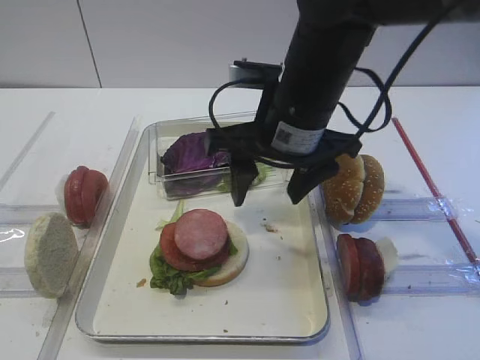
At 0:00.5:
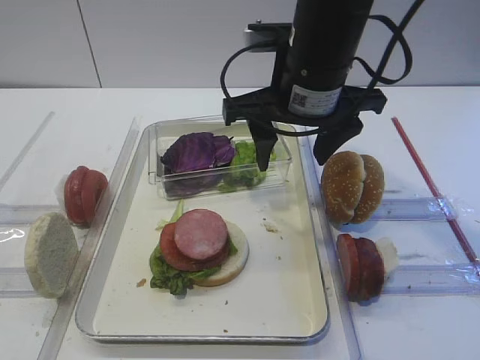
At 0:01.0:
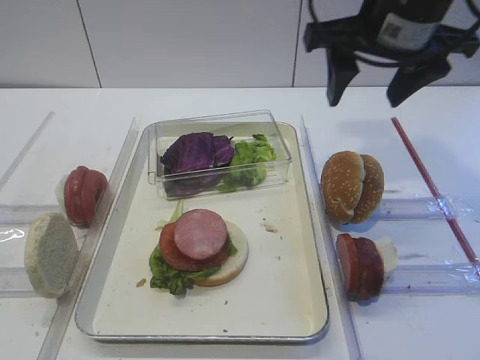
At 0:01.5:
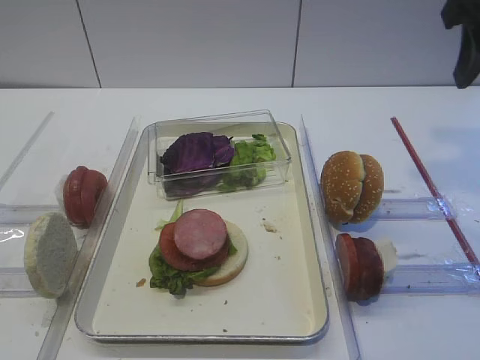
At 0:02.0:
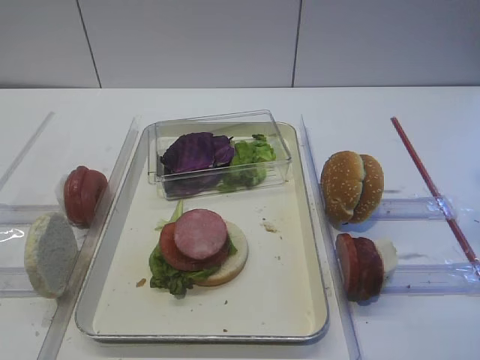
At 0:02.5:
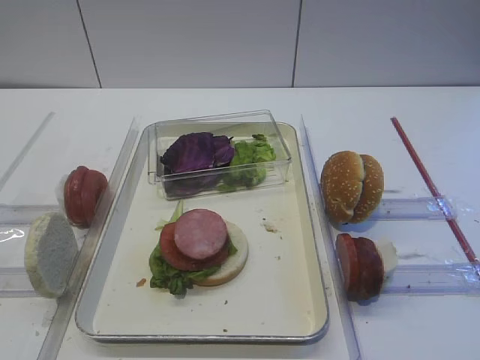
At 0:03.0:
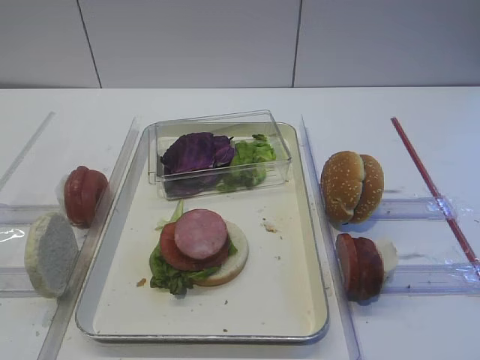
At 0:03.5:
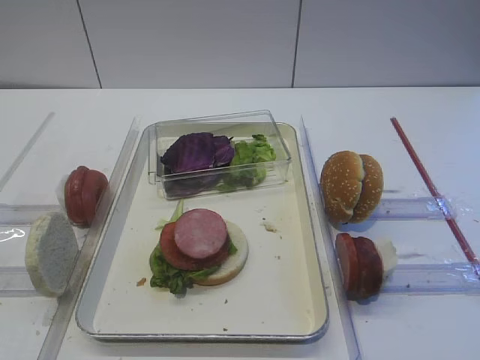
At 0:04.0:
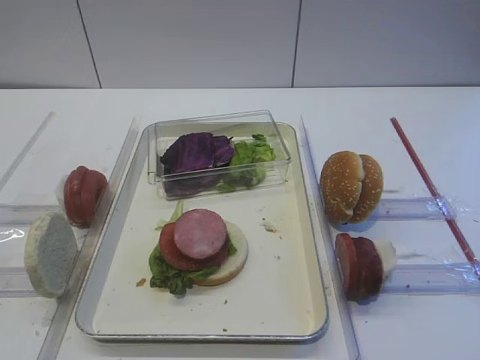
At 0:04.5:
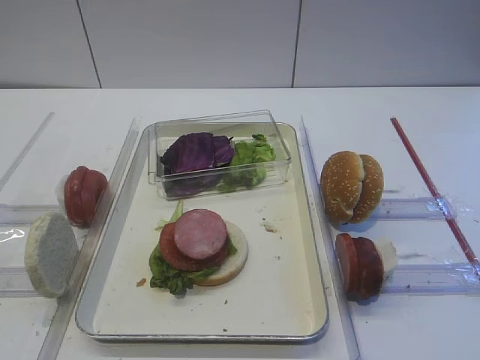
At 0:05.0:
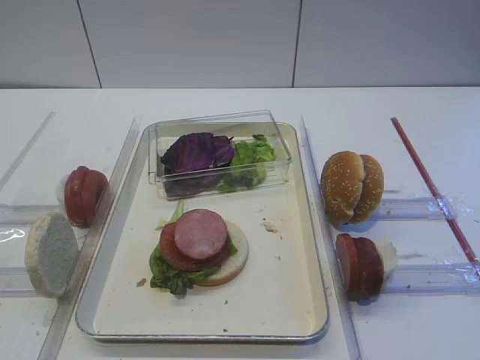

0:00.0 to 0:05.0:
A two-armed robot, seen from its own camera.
0:00.0 to 0:02.5: The right gripper moves to the right, backward and upward, some 30 cm.

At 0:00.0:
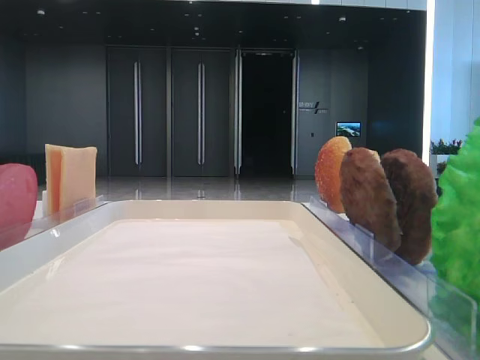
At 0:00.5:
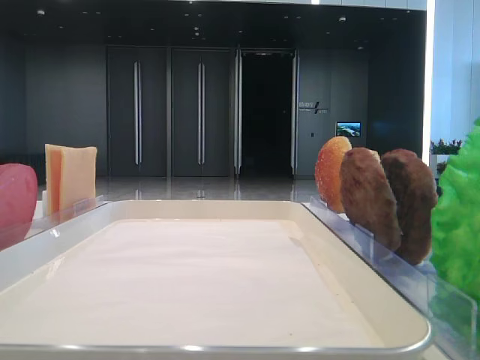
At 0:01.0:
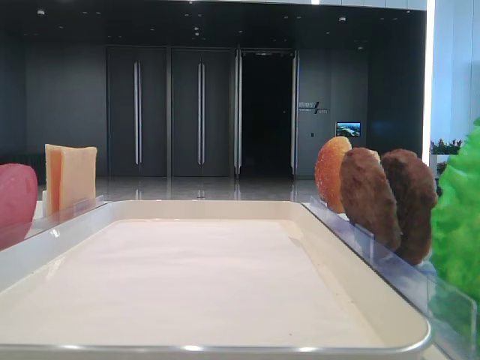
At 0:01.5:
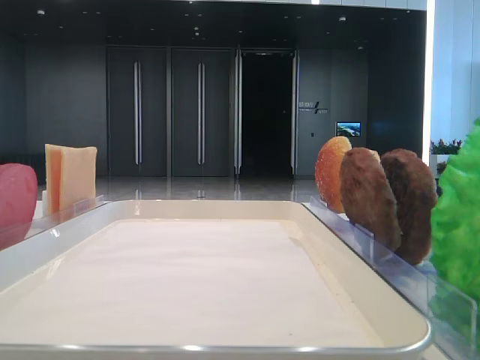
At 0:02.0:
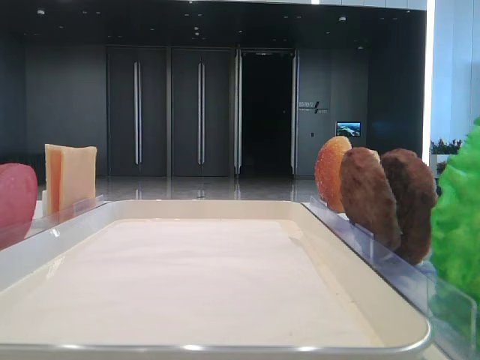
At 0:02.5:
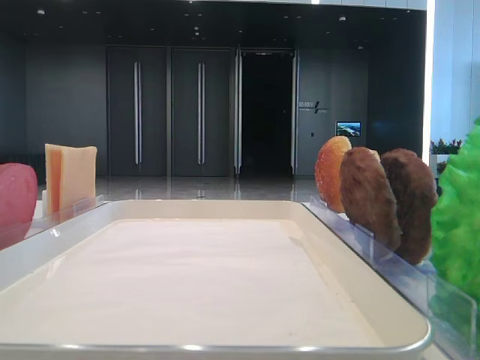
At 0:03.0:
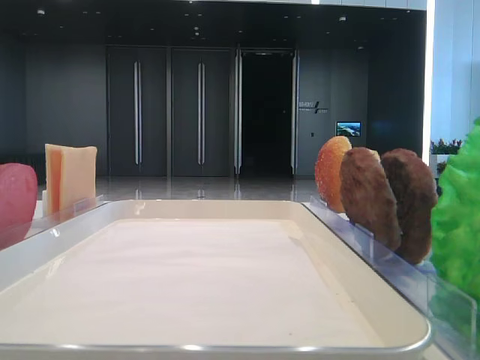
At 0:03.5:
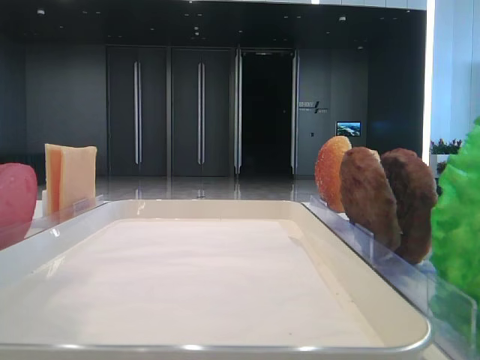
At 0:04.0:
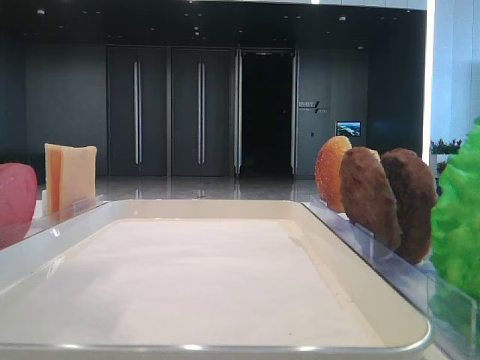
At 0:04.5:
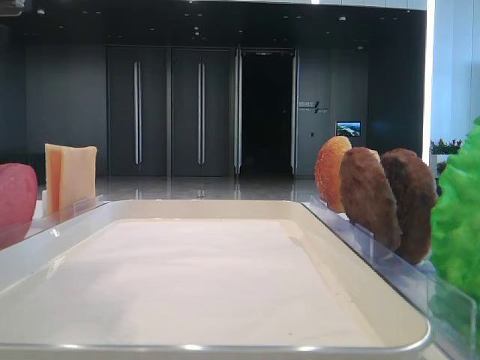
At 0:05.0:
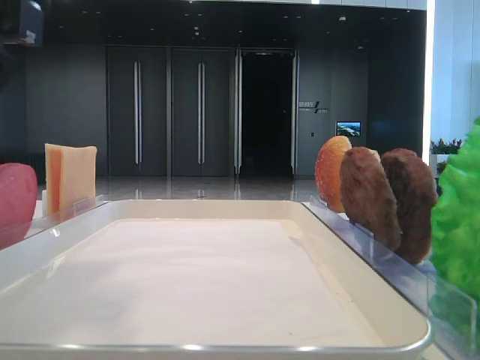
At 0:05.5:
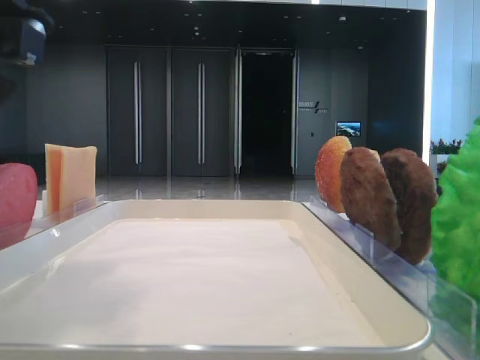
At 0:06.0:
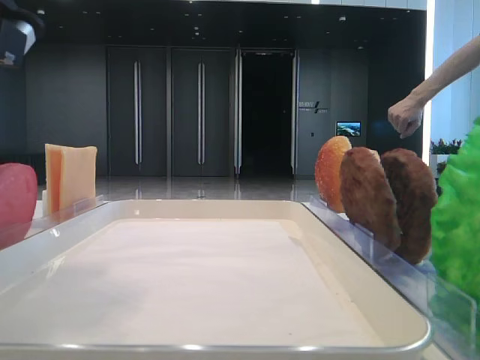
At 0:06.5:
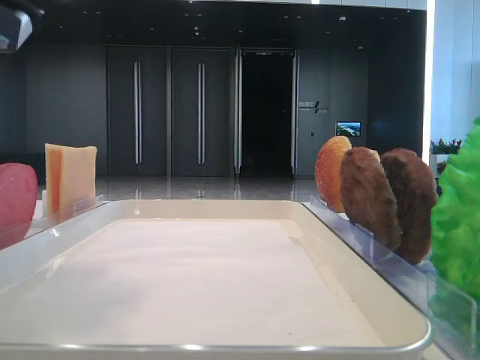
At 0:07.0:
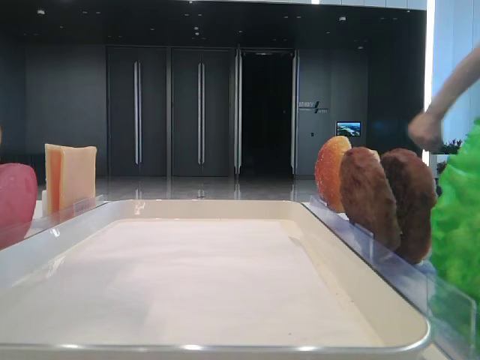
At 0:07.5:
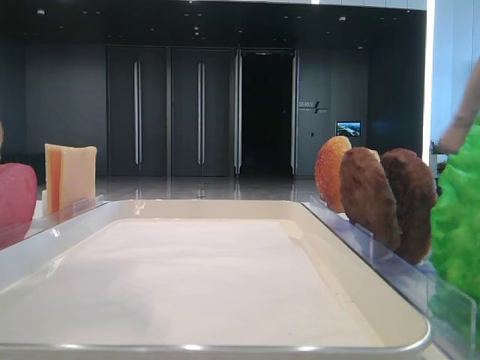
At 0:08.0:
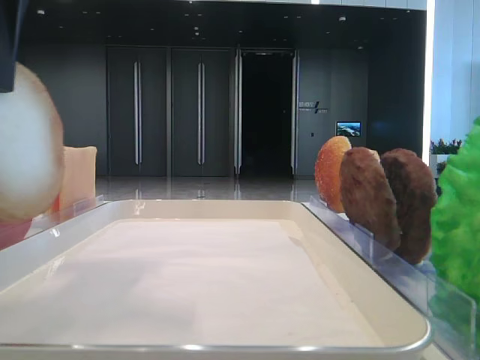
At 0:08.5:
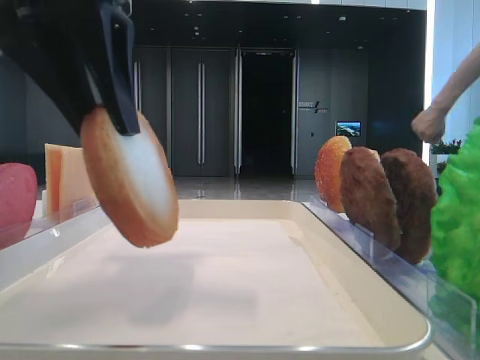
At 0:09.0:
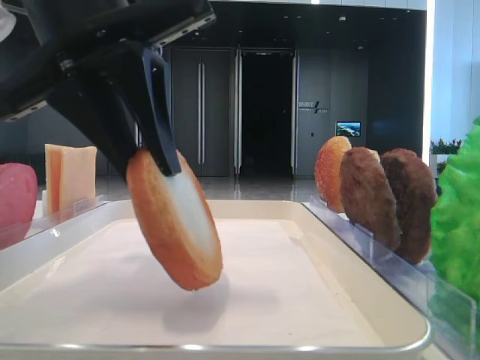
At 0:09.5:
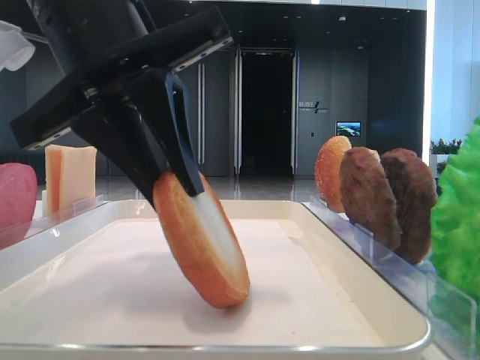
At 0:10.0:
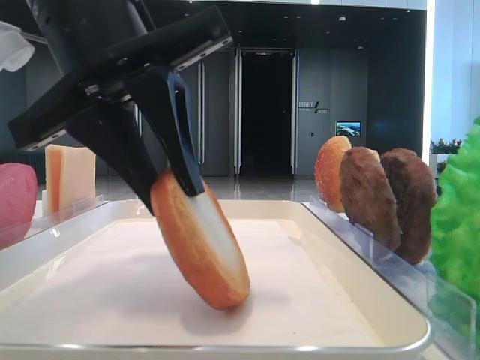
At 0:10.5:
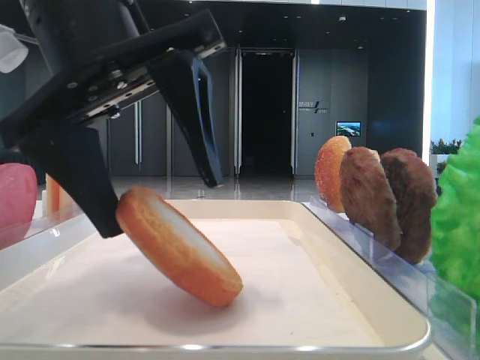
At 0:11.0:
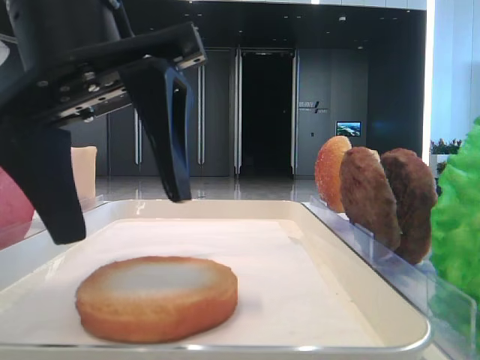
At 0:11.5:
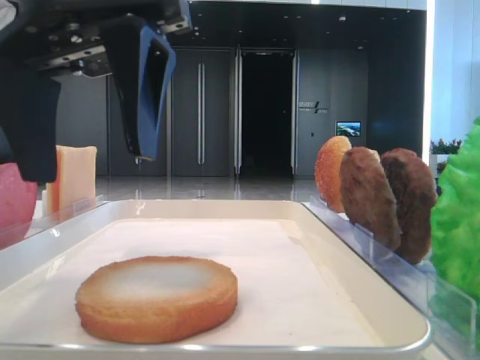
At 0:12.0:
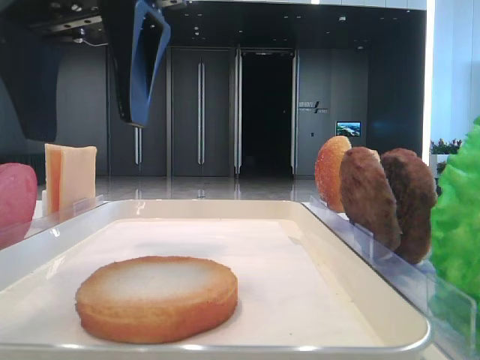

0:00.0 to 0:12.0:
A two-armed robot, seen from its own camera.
Step, 0:00.0 to 0:06.0: Pick up the bottom bread with the left hand.
Step, 0:06.5 to 0:10.5: Place the bread on the tray with the left hand.
0:02.0 to 0:04.0: The left gripper heads to the right, forward and downward, covering approximately 20 cm.
0:06.0 to 0:08.0: The left gripper ends up approximately 5 cm from where it was.
0:08.0 to 0:10.0: The left gripper travels downward and to the right by some 10 cm.
0:10.0 to 0:12.0: The left gripper heads upward, covering roughly 5 cm, and opens.

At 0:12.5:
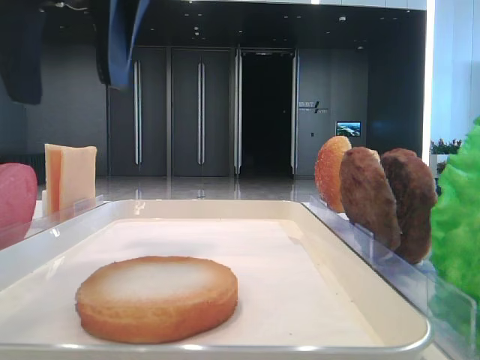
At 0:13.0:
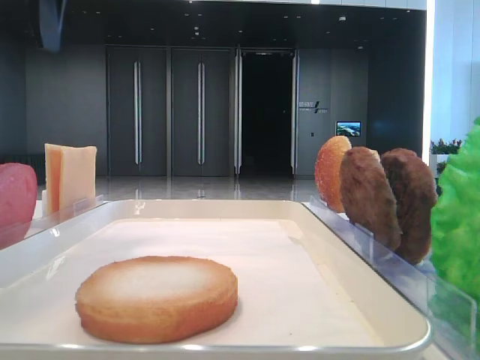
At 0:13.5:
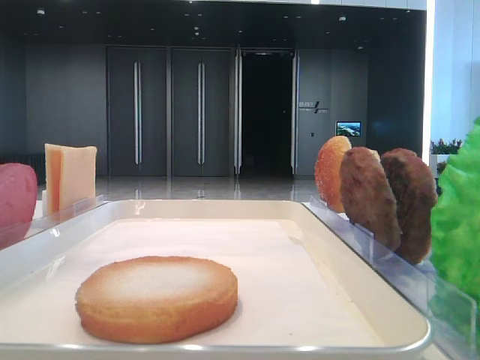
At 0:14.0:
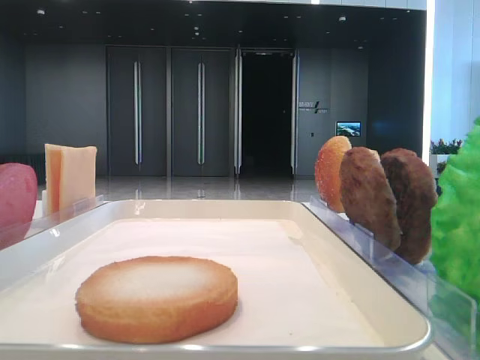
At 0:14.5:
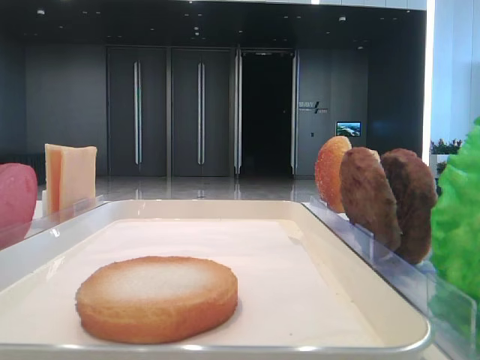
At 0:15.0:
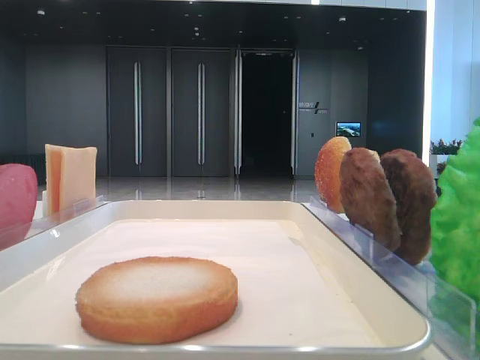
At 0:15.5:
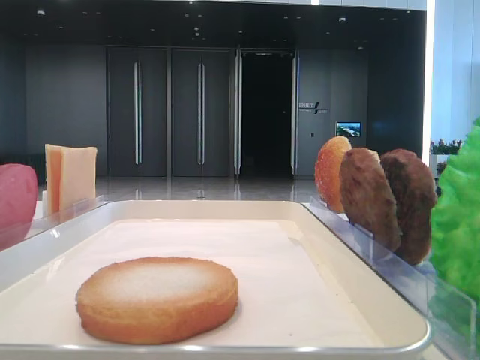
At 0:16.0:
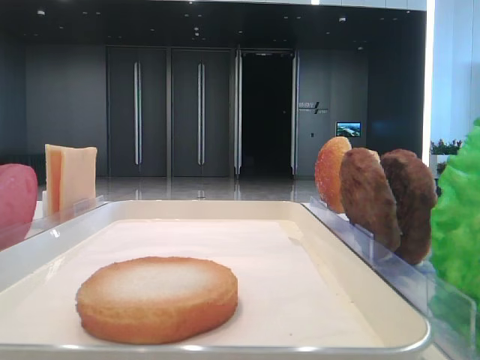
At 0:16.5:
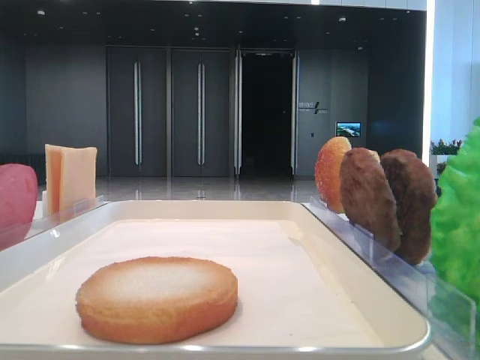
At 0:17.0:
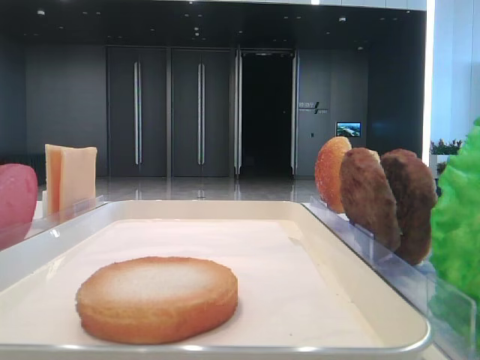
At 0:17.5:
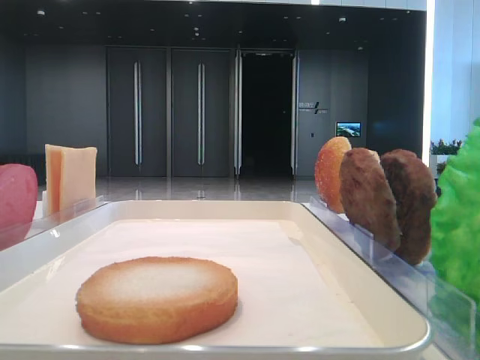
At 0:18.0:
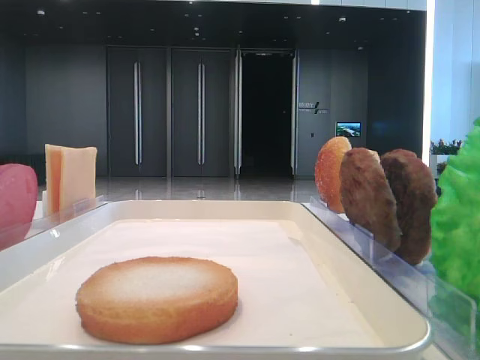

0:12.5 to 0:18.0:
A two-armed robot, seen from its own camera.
0:12.5 to 0:14.5: The left gripper shifts some 20 cm to the left, backward and upward.

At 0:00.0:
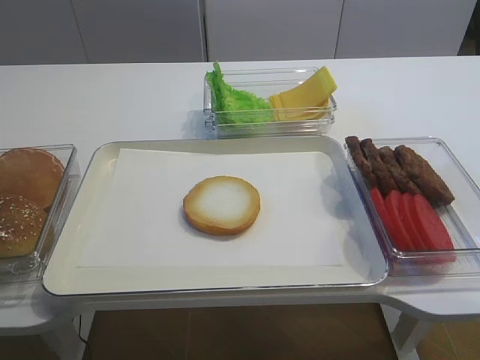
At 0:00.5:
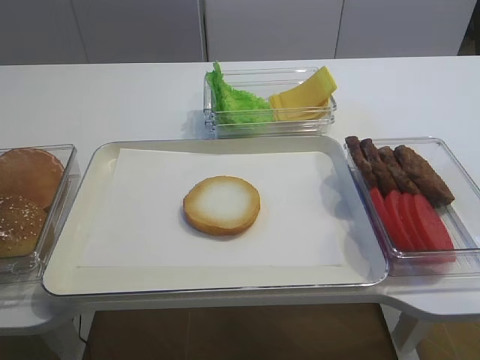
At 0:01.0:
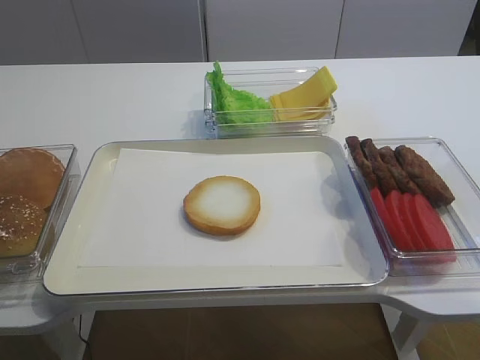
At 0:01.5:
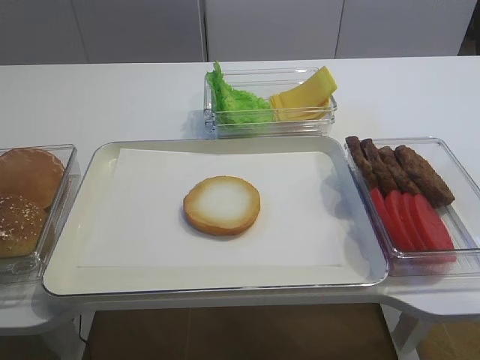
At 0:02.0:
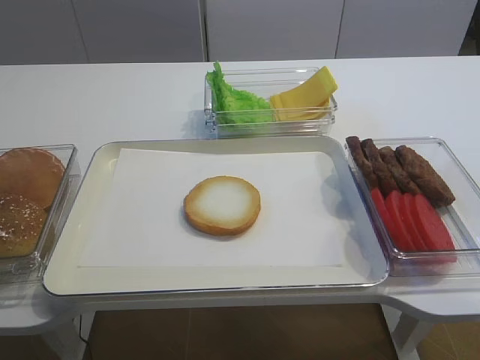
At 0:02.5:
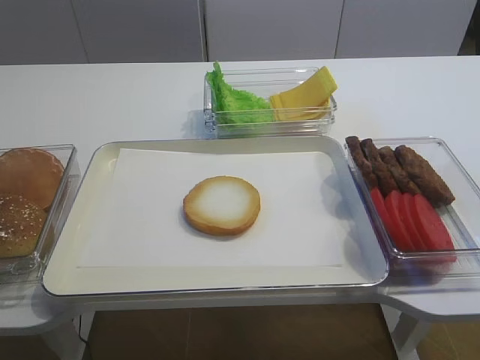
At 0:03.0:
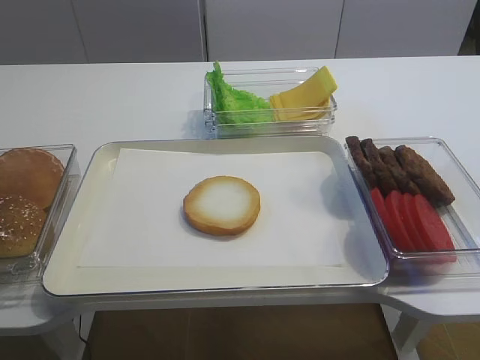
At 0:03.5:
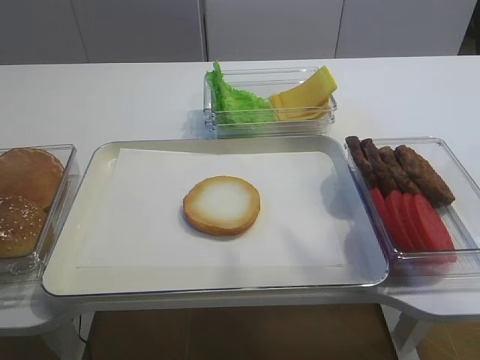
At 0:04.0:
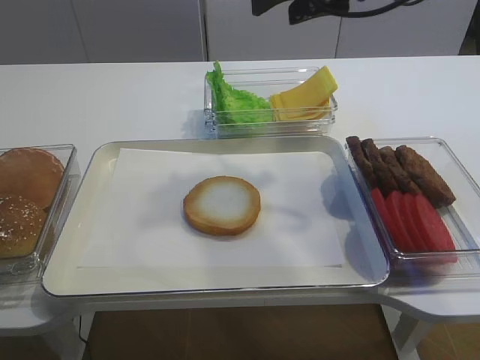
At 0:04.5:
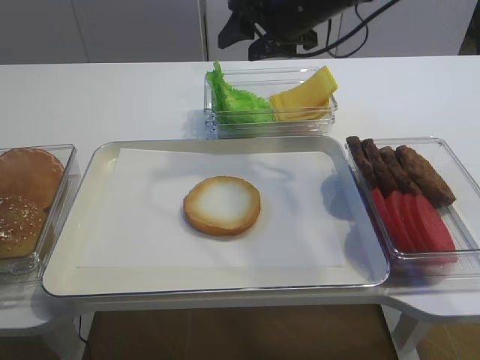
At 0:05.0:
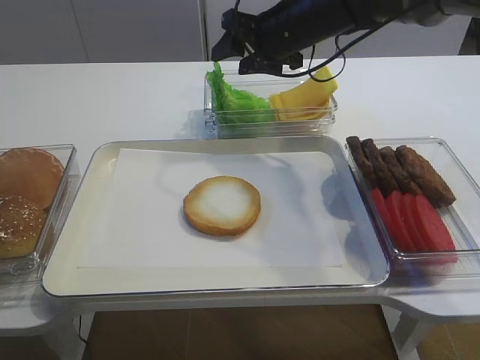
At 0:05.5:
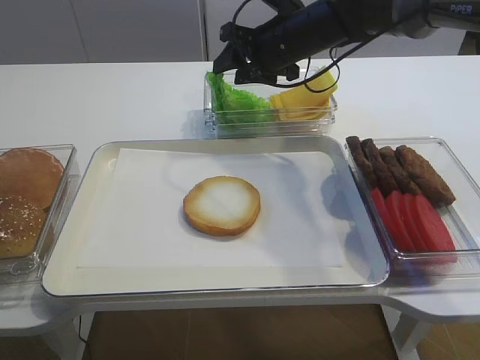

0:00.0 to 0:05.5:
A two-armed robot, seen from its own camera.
0:02.0 to 0:03.5: The right gripper heads forward and upward, covering roughly 30 cm.
0:03.5 to 0:05.5: The right gripper shifts roughly 30 cm forward, downward and to the left.
